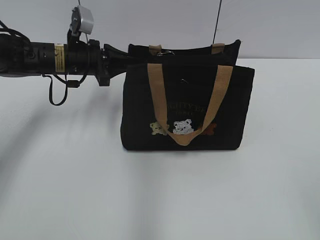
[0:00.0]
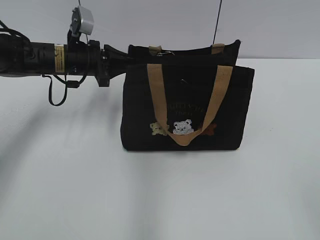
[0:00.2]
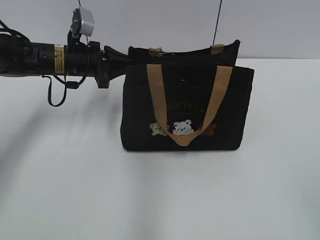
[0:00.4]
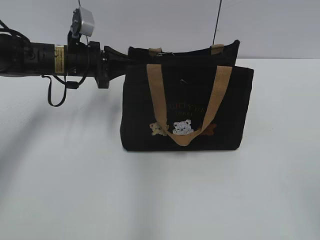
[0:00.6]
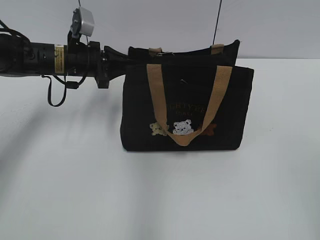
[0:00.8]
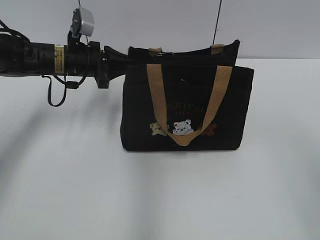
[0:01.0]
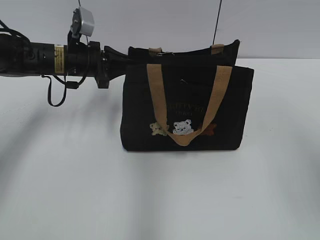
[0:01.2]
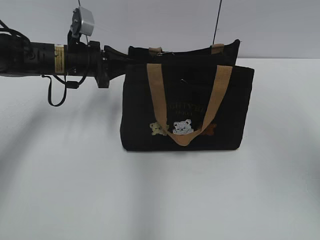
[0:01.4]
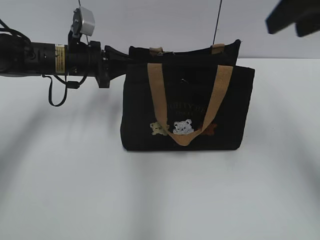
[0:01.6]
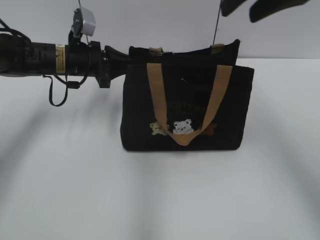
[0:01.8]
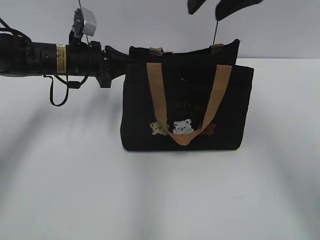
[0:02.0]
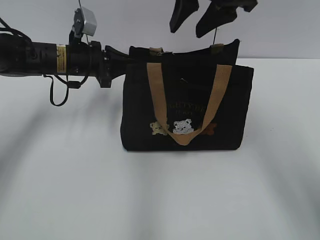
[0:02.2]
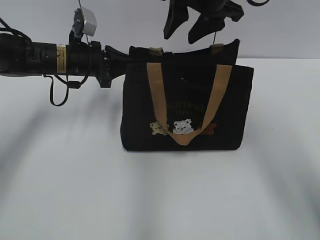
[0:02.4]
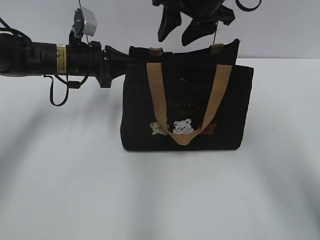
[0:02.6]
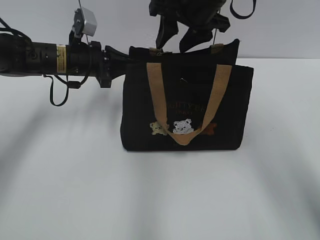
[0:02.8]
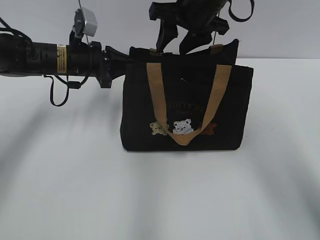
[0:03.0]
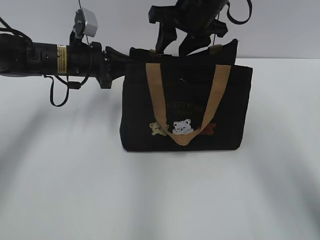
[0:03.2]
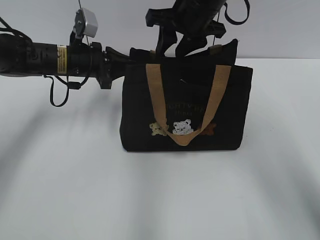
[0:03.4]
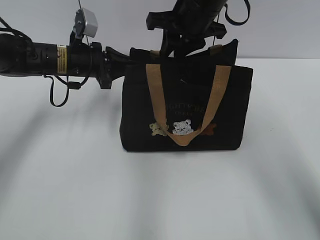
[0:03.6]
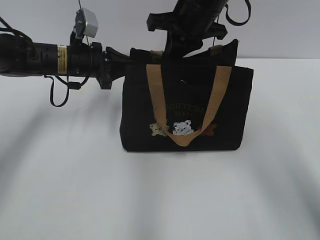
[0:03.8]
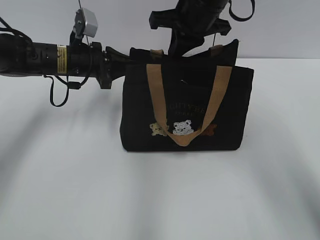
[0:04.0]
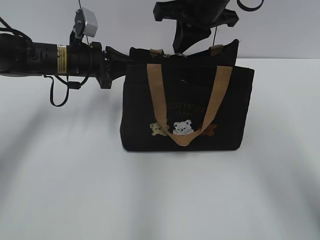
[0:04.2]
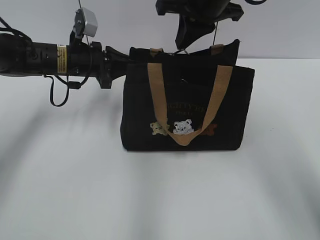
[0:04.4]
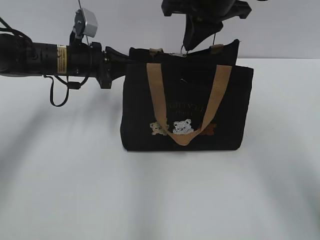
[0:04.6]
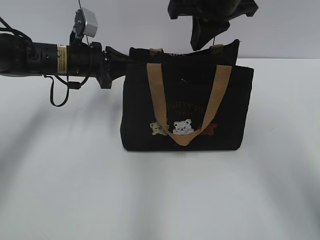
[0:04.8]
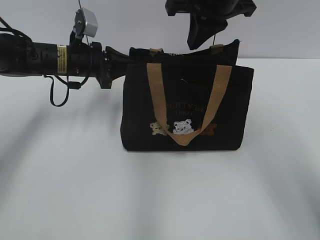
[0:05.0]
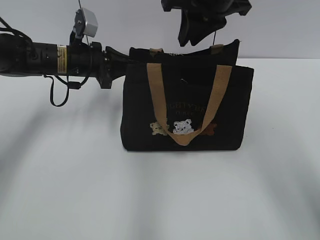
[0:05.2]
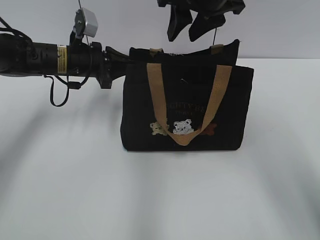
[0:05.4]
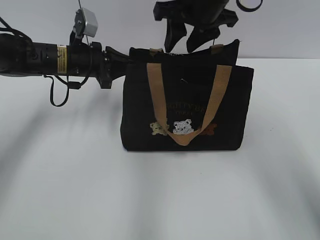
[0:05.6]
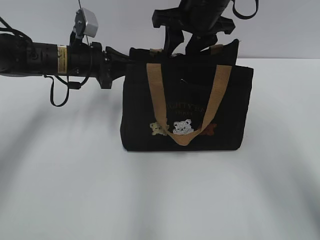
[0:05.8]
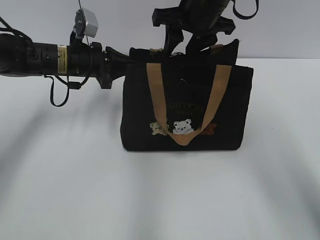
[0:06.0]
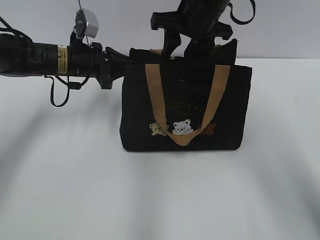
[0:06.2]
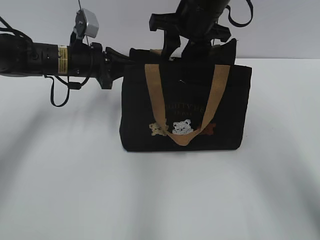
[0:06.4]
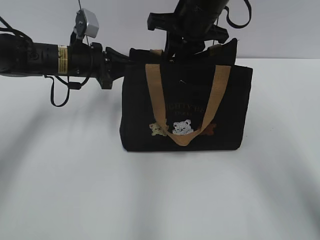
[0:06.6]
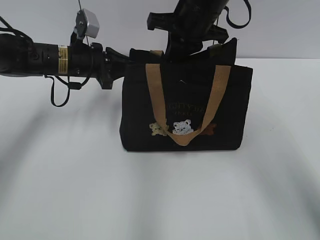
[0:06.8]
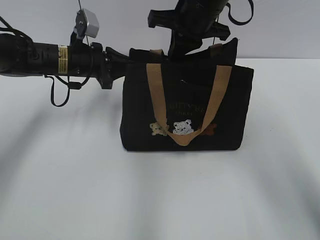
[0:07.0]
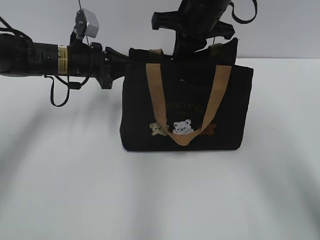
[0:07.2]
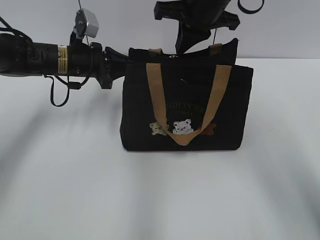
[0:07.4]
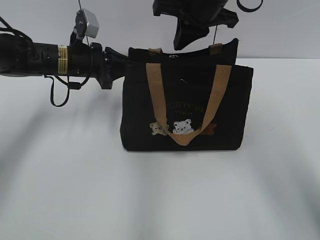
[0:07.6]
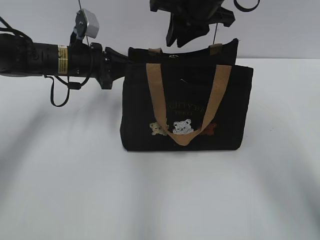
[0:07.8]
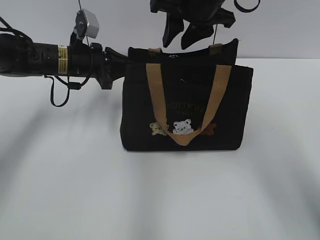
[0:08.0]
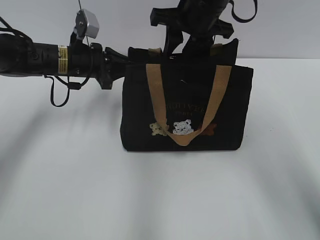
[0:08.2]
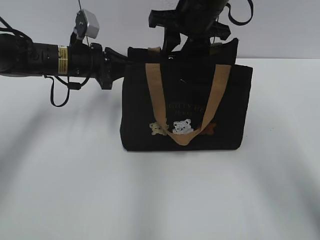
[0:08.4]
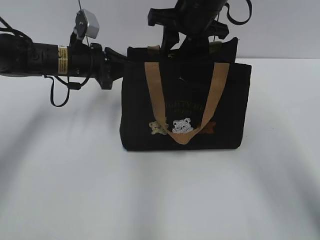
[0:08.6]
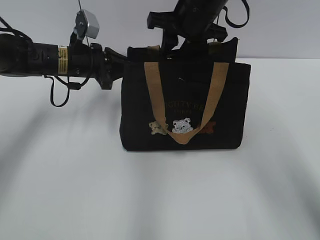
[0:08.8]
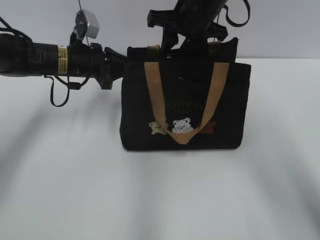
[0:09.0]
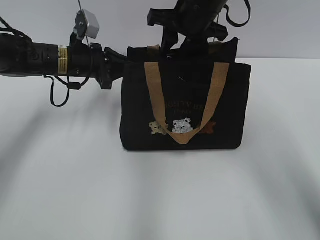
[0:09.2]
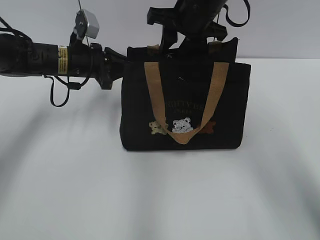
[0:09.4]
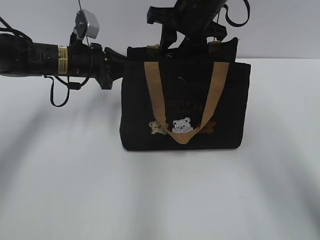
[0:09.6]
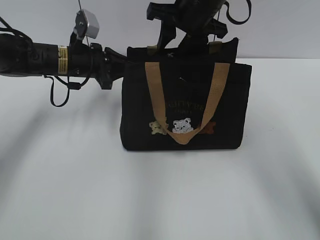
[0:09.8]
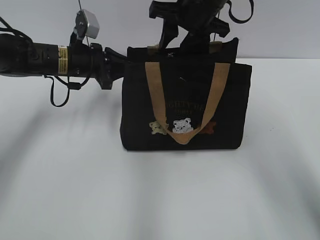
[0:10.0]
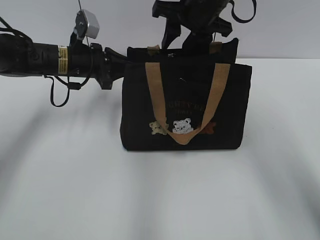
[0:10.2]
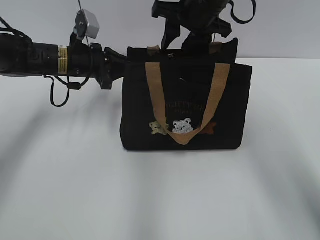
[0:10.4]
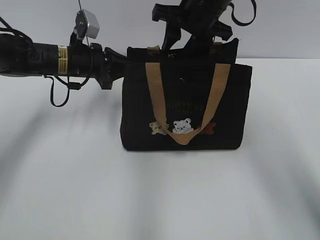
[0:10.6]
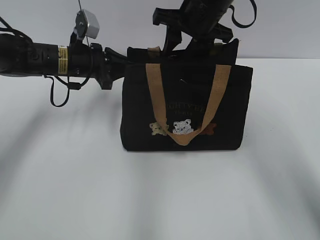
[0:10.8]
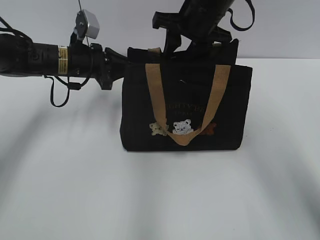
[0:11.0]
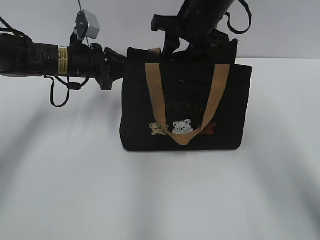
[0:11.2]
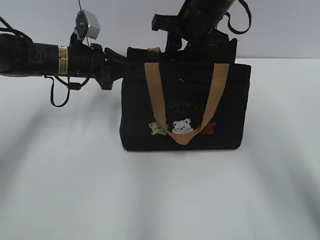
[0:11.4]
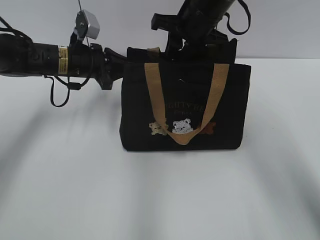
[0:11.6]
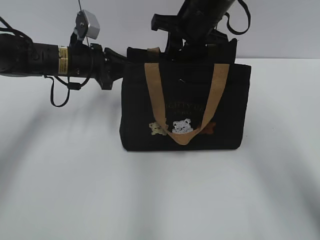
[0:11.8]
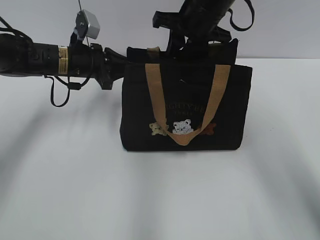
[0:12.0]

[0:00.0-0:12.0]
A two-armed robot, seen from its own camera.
0:00.0 to 0:01.6: The right gripper goes roughly 30 cm forward and upward.
0:01.6 to 0:03.0: The right gripper moves forward, to the left and downward, roughly 20 cm.
0:03.0 to 0:04.4: The right gripper closes up.
0:04.4 to 0:06.0: The right gripper opens.
0:06.0 to 0:07.6: The right gripper closes up.
0:07.6 to 0:09.0: The right gripper opens its fingers.
0:09.0 to 0:12.0: There are only small adjustments of the grippers.

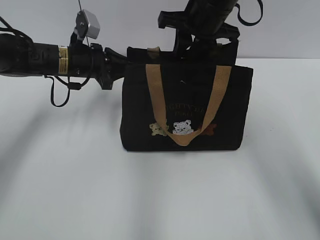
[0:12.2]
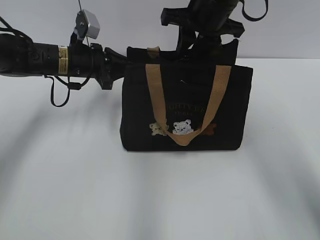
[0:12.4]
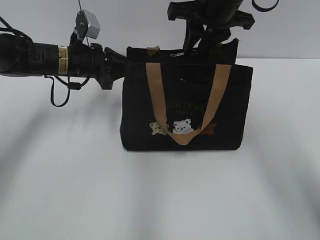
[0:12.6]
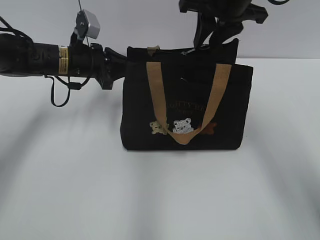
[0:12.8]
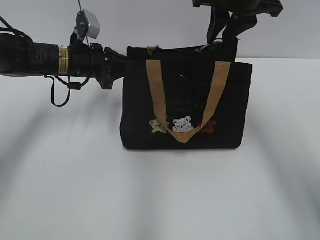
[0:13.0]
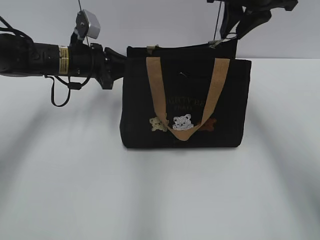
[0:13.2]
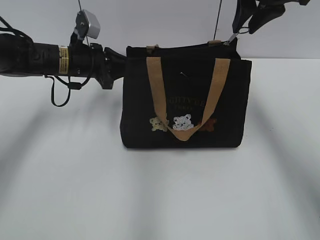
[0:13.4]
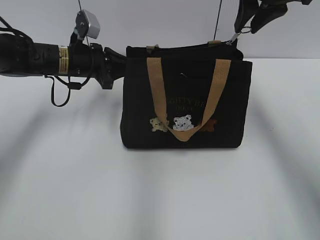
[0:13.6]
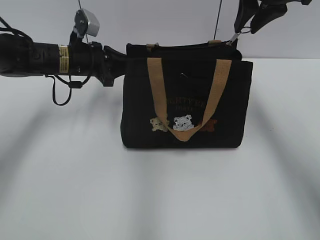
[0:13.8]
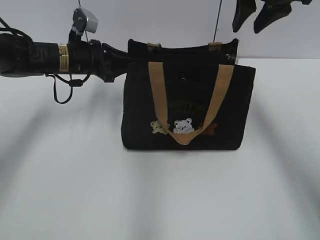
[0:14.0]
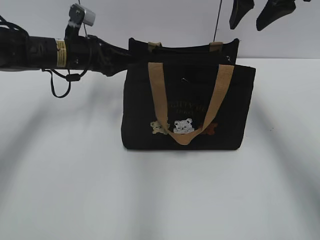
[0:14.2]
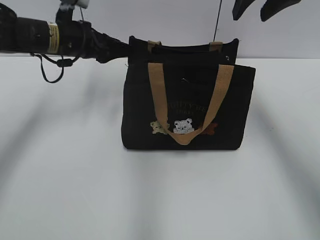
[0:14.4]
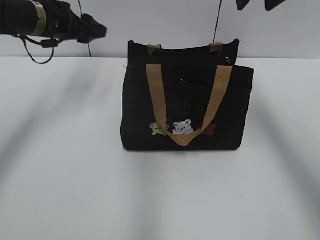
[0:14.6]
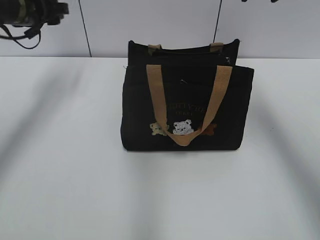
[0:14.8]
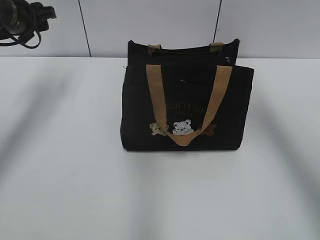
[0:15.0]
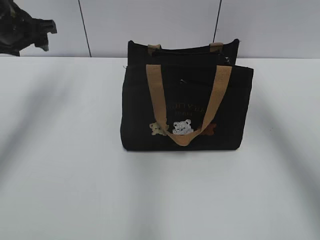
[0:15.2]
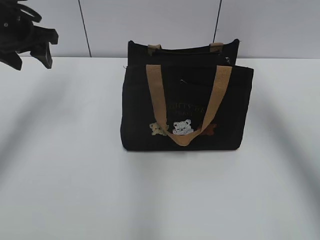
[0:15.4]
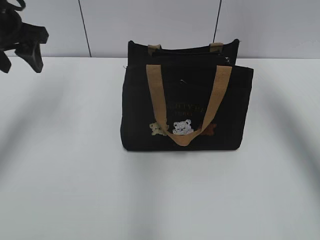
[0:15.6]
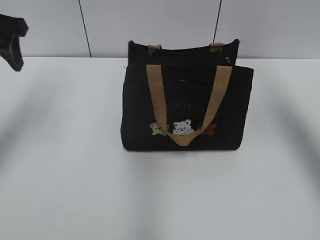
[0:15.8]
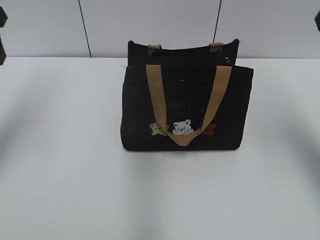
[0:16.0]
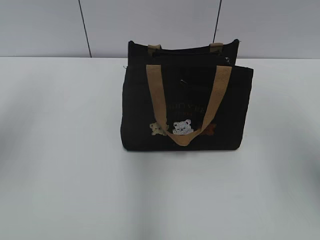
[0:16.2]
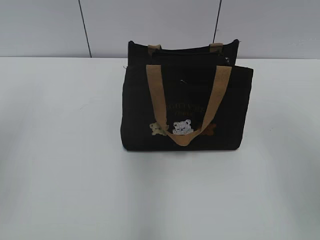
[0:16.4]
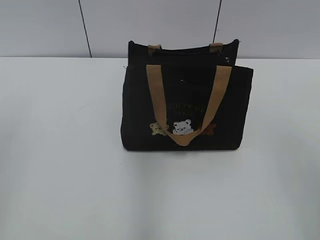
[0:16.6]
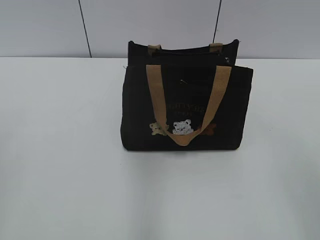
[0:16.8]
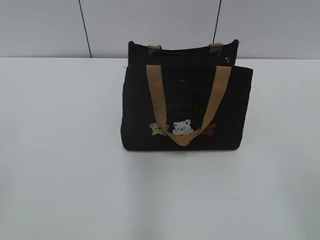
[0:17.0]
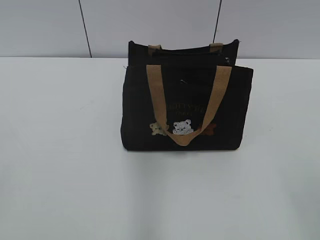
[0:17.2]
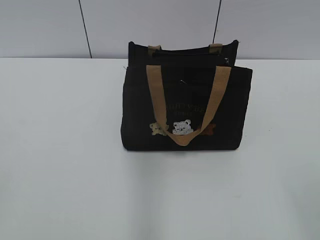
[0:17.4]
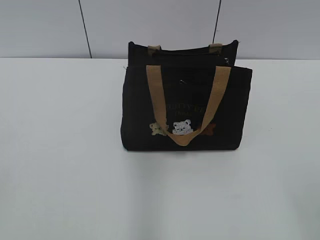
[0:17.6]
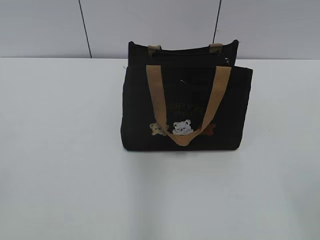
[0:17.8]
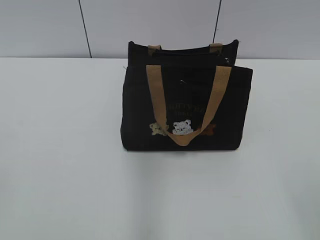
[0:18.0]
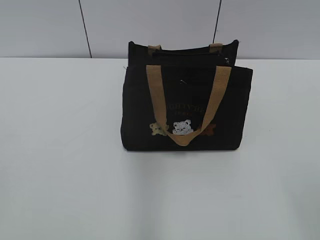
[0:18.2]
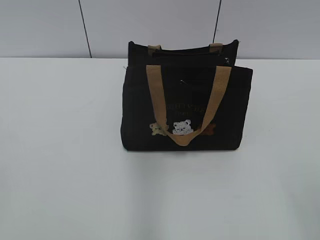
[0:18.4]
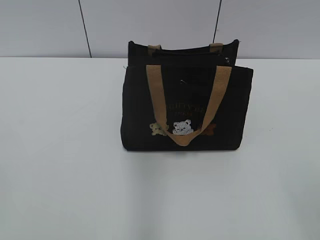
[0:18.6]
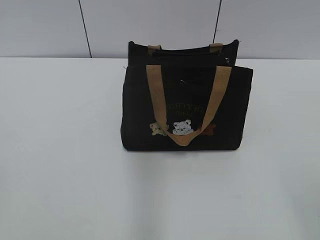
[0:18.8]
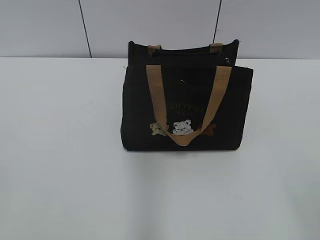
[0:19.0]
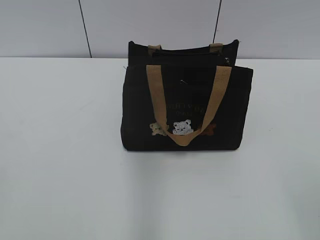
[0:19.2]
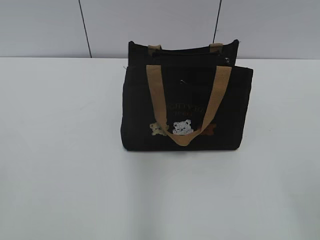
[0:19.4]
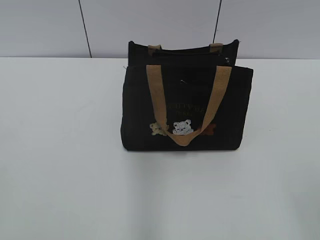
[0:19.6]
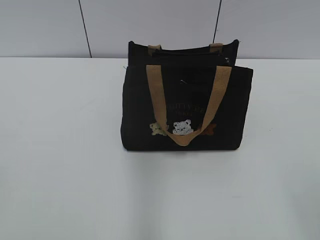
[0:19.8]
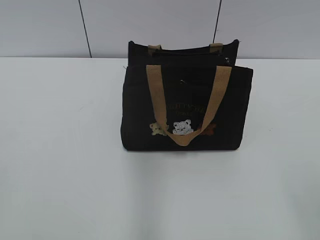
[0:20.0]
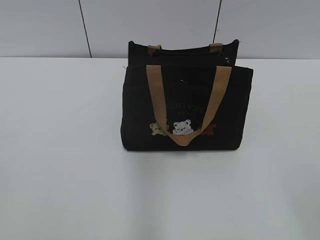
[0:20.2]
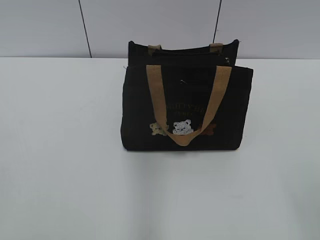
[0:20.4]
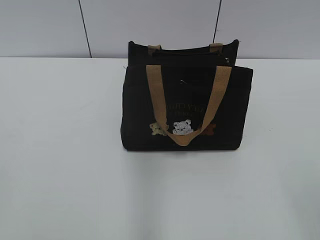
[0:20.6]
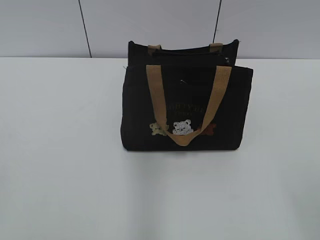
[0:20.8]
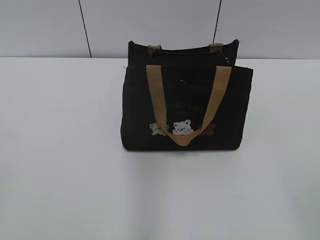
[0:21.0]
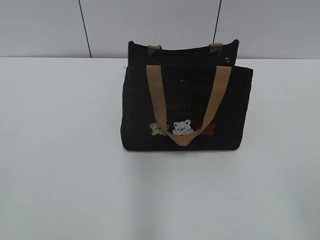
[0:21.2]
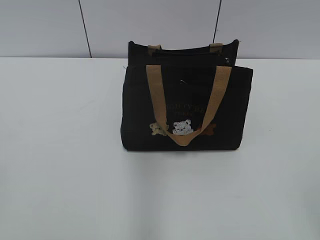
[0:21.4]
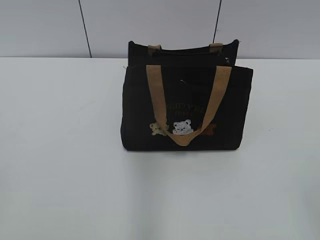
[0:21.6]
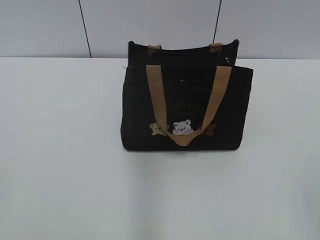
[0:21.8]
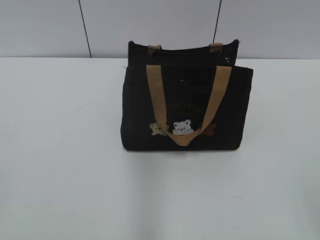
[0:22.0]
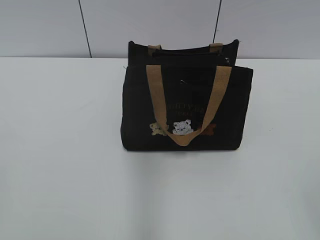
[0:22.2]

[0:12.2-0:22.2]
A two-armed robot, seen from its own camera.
Step, 0:14.0 to 0:14.4: Hold the bag with your left hand.
0:12.2 to 0:13.6: The right gripper goes some 10 cm to the right and upward.
0:13.6 to 0:15.0: The left gripper shifts roughly 15 cm to the left and upward, and opens. Meanwhile the right gripper travels upward by approximately 5 cm, and opens up.
0:15.0 to 0:16.4: The left gripper goes approximately 25 cm backward.
0:18.0 to 0:20.8: Neither gripper changes place.
